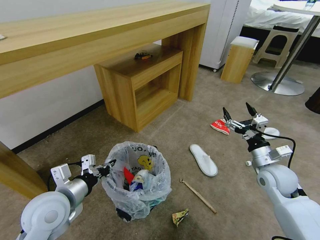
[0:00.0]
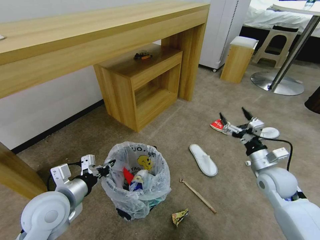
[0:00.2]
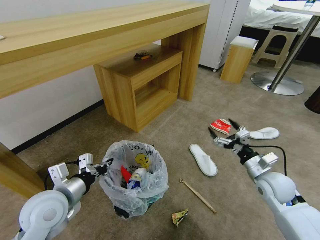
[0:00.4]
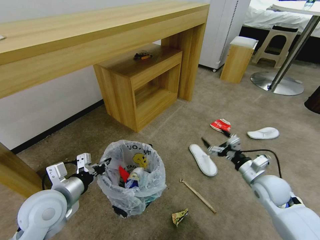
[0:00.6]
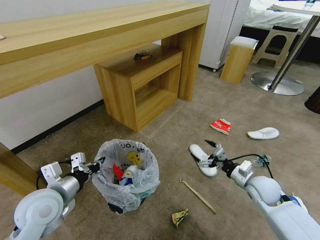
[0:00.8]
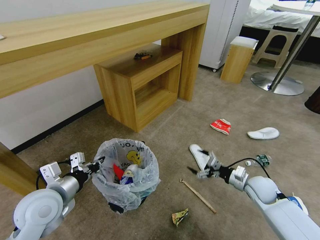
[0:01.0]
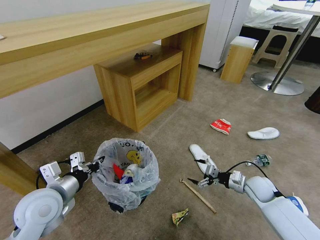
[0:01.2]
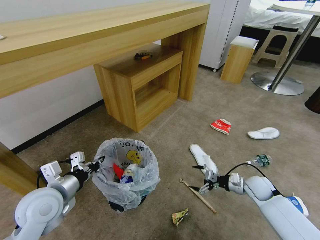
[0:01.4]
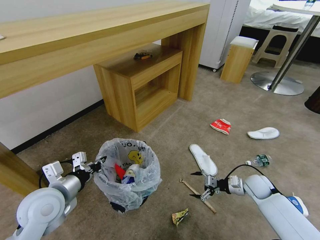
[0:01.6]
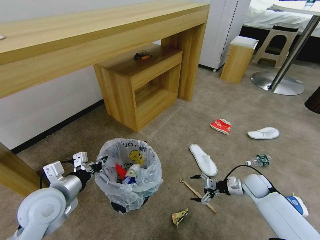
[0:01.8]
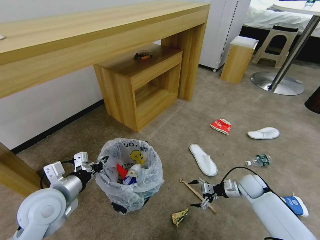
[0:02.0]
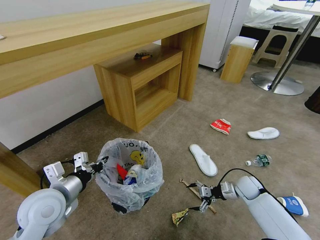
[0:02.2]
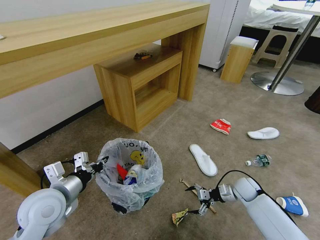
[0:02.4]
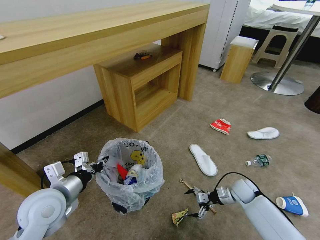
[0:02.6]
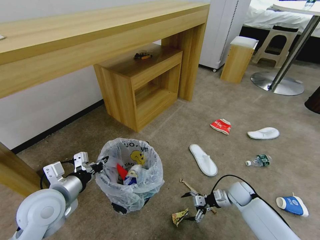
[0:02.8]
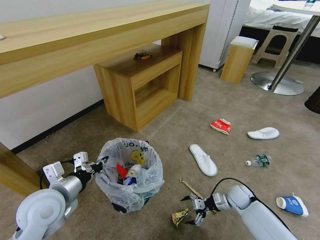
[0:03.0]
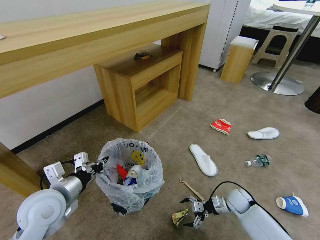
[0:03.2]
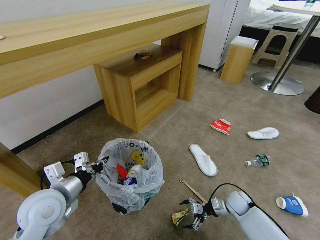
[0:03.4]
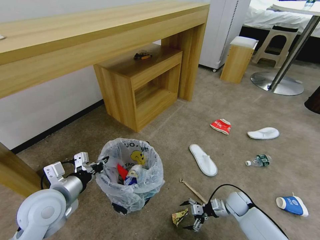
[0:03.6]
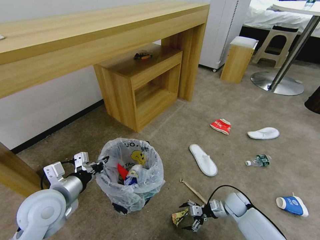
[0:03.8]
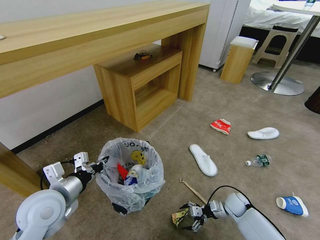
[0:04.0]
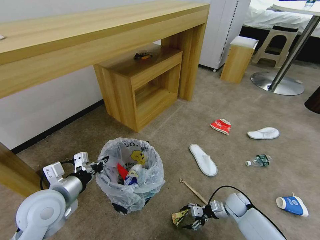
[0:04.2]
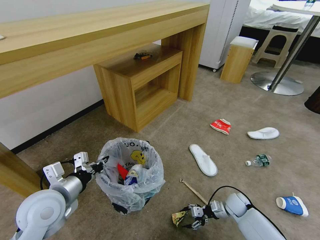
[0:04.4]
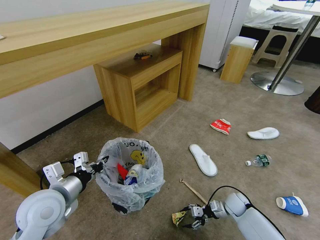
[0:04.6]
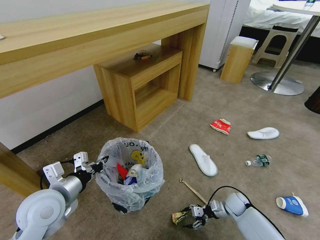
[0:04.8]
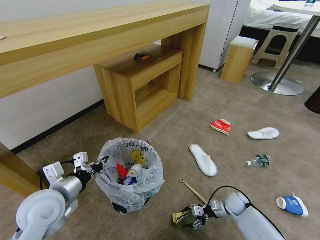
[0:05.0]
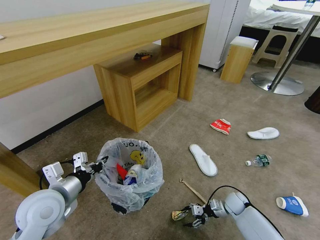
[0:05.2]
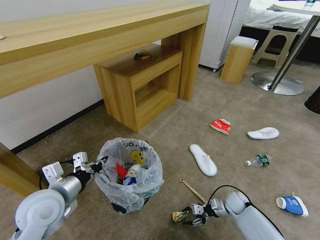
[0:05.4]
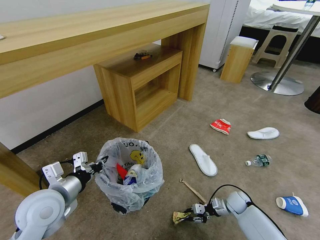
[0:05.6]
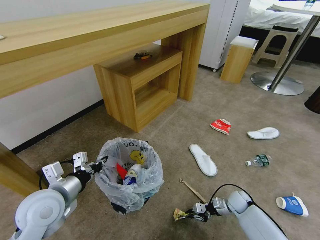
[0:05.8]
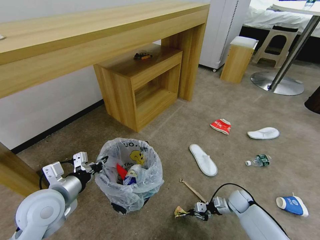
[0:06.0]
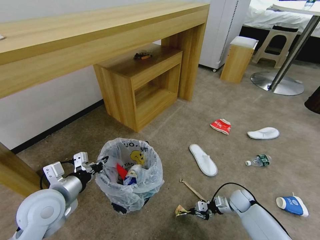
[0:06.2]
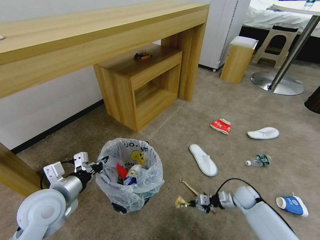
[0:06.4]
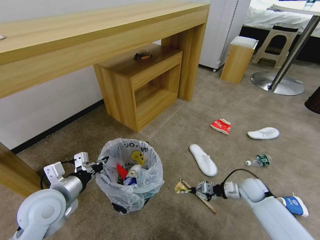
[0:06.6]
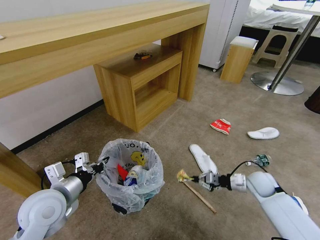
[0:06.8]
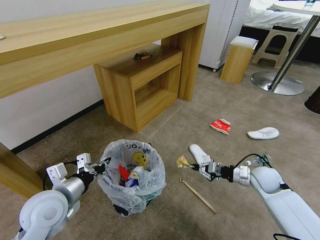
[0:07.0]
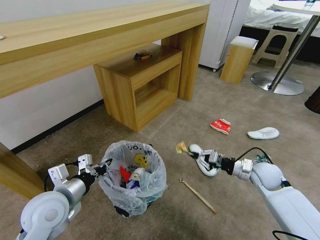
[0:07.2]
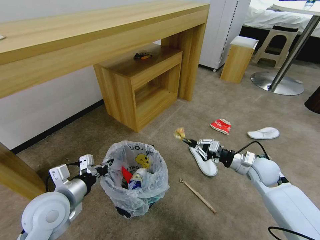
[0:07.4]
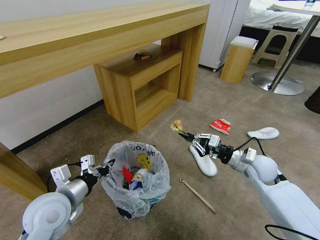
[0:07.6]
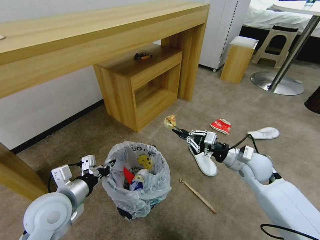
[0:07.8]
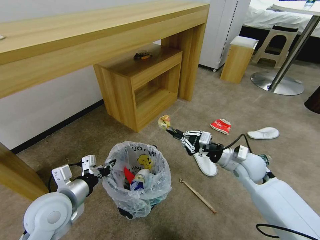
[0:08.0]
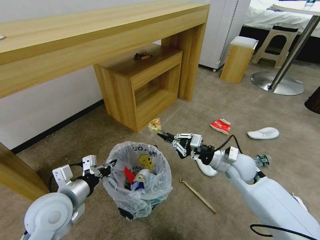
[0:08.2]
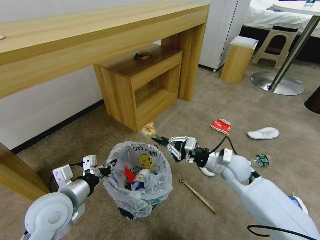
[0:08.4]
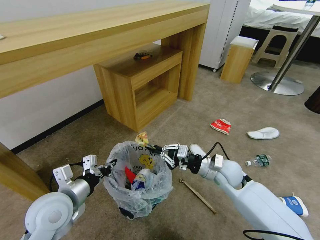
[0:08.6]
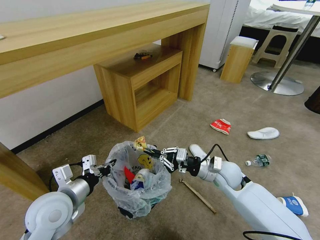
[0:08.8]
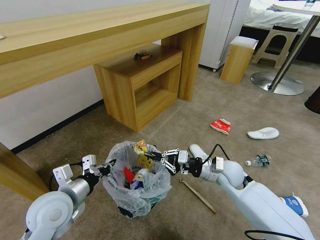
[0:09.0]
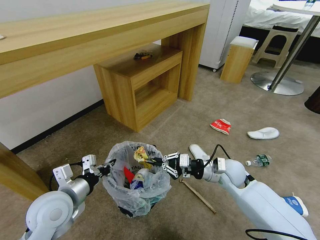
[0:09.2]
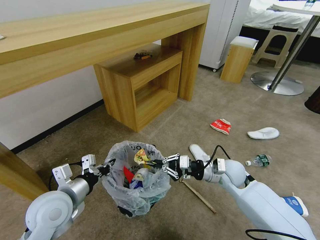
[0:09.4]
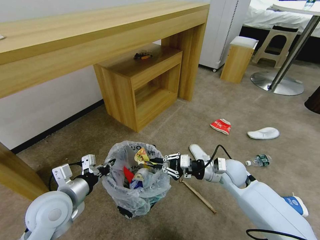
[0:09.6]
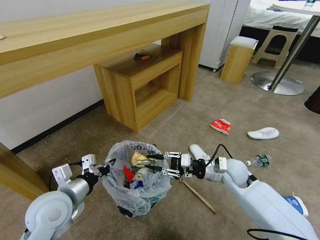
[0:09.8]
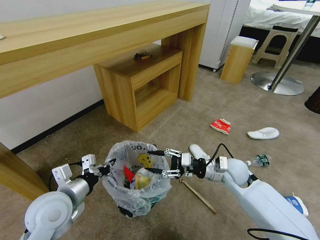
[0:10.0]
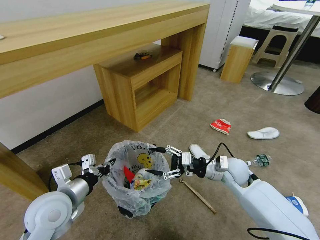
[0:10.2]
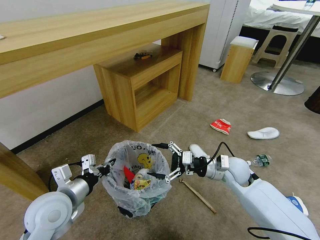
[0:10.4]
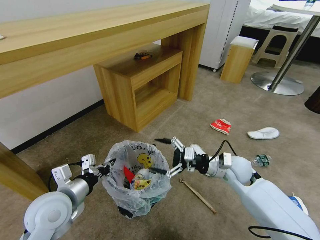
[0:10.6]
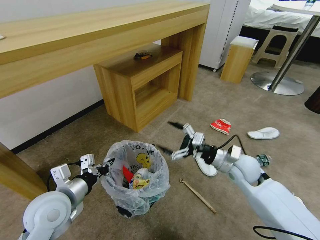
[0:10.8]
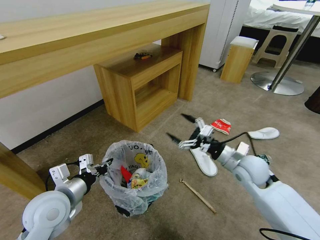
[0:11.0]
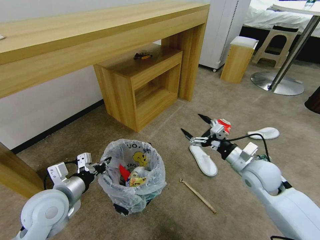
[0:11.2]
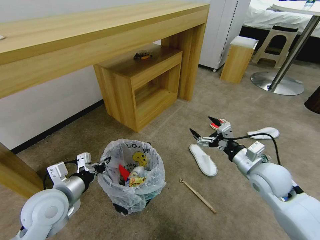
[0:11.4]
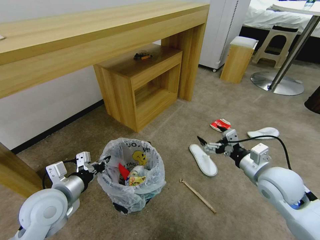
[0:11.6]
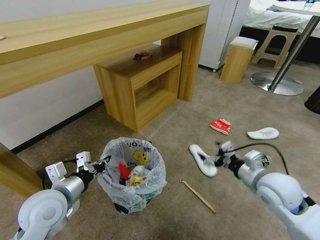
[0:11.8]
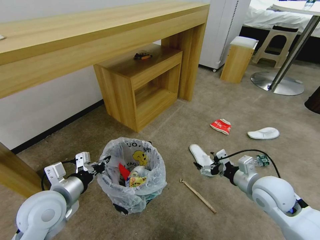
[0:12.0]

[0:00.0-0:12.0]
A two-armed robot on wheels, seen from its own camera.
Task of the whole recording: Pick up the trash bin and place the garbage on the floor into it.
0:00.0 to 0:01.6: The right gripper heads downward, covering about 15 cm.
0:01.6 to 0:03.0: The right gripper shifts approximately 10 cm downward and to the left.
0:03.0 to 0:04.4: The grippers stay close to where they were, moving slightly.
0:04.4 to 0:06.0: The right gripper closes.
0:06.0 to 0:07.6: The right gripper goes about 25 cm upward.
0:07.6 to 0:09.0: The right gripper moves to the left, some 10 cm.
0:09.0 to 0:10.4: The right gripper opens.
0:10.4 to 0:12.0: The right gripper goes about 10 cm backward and to the right.

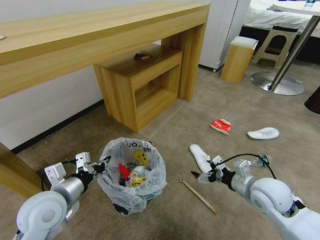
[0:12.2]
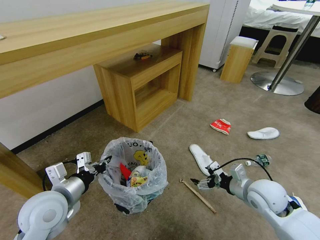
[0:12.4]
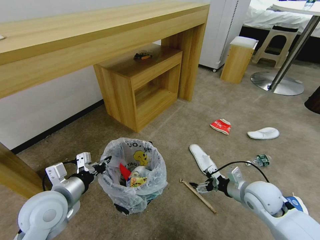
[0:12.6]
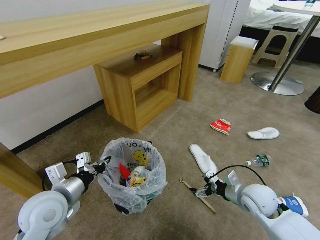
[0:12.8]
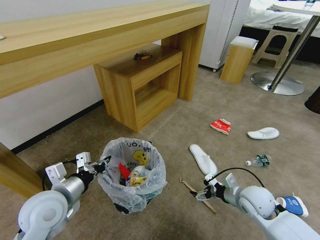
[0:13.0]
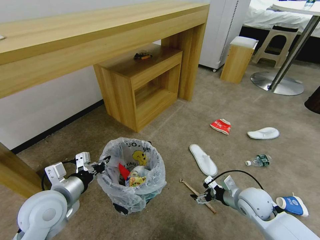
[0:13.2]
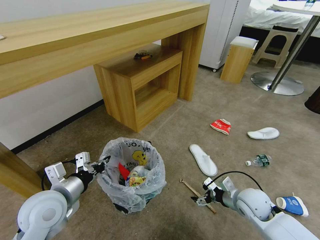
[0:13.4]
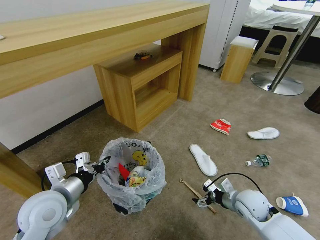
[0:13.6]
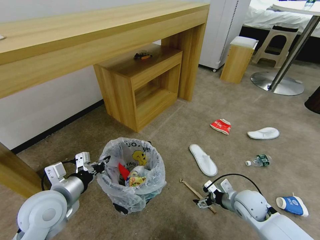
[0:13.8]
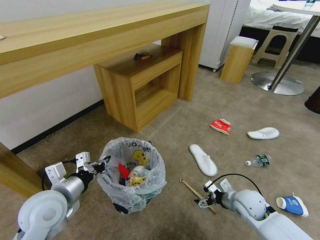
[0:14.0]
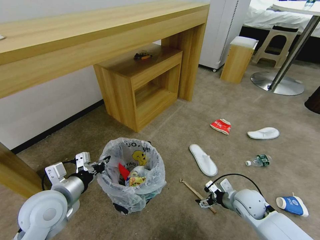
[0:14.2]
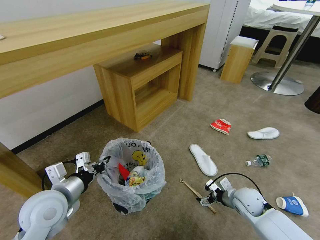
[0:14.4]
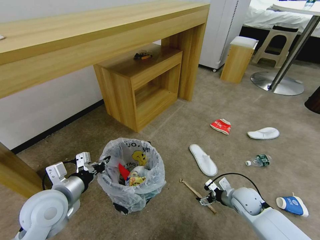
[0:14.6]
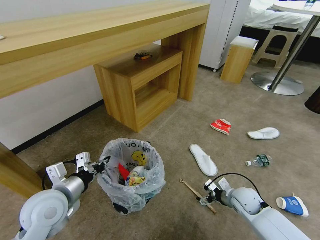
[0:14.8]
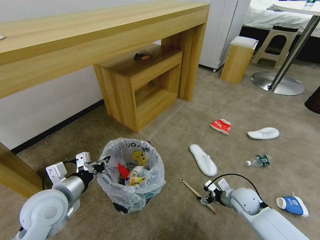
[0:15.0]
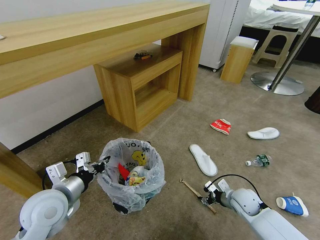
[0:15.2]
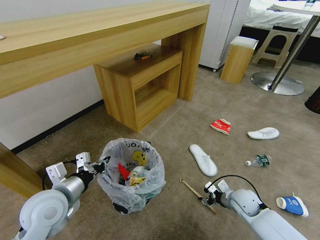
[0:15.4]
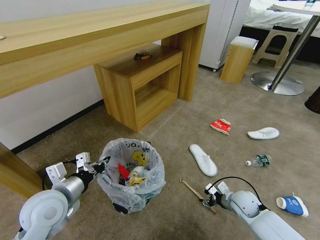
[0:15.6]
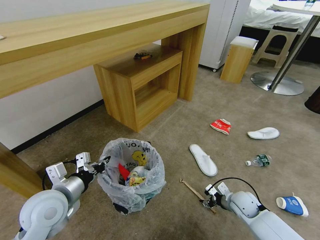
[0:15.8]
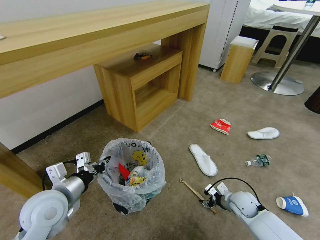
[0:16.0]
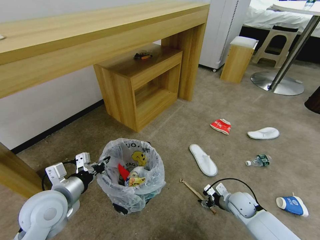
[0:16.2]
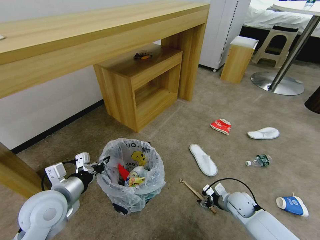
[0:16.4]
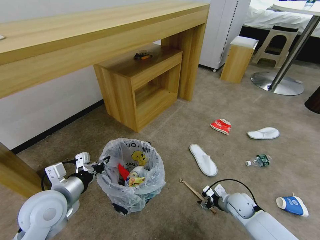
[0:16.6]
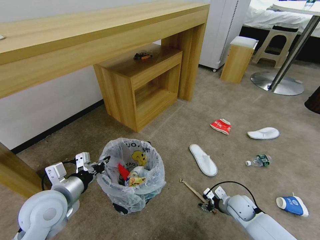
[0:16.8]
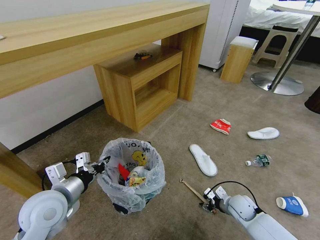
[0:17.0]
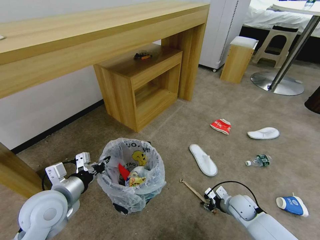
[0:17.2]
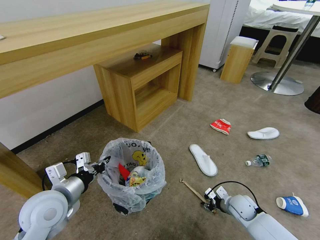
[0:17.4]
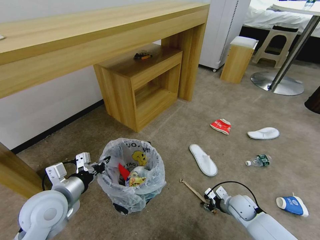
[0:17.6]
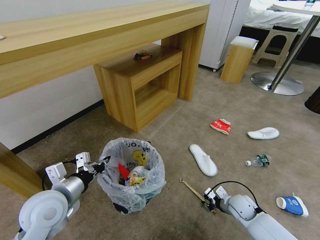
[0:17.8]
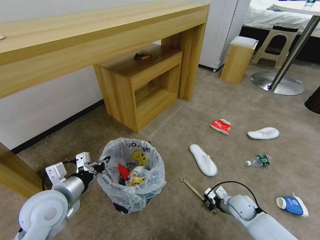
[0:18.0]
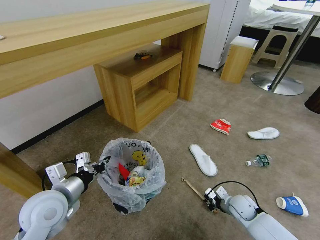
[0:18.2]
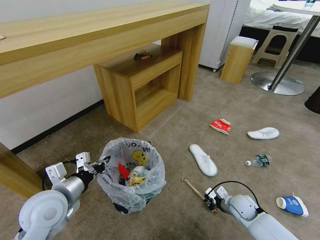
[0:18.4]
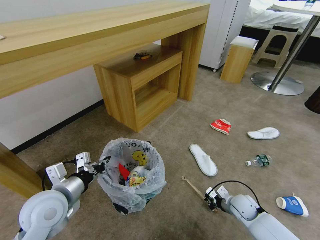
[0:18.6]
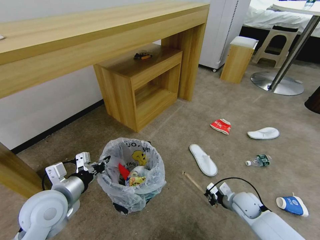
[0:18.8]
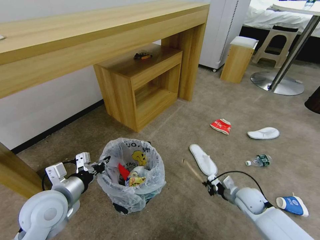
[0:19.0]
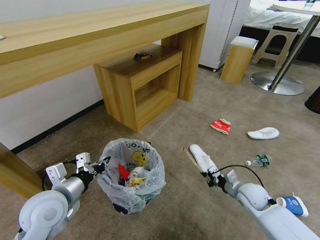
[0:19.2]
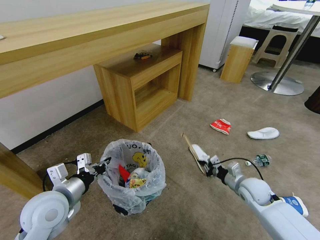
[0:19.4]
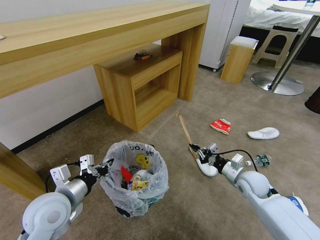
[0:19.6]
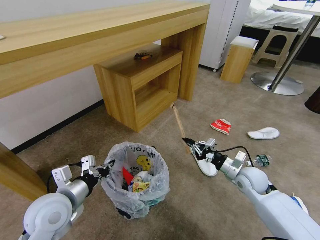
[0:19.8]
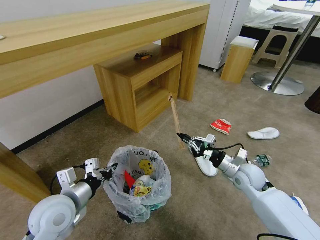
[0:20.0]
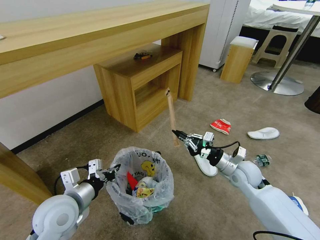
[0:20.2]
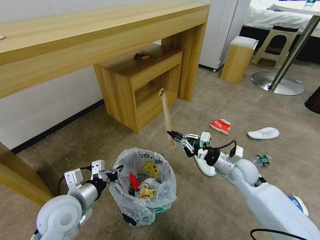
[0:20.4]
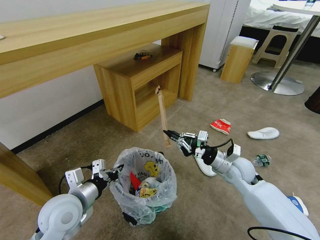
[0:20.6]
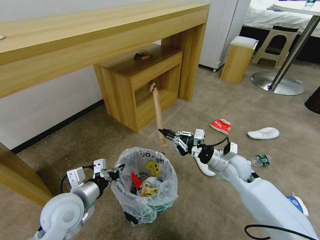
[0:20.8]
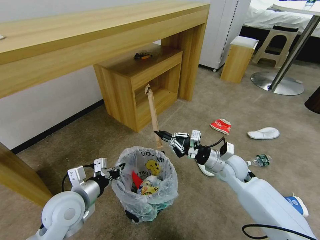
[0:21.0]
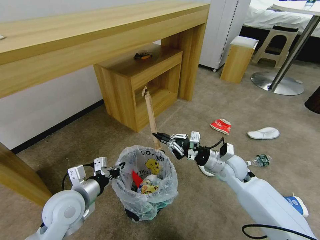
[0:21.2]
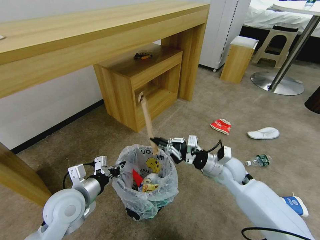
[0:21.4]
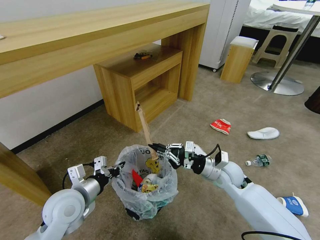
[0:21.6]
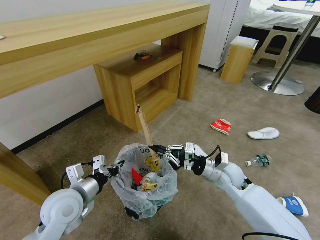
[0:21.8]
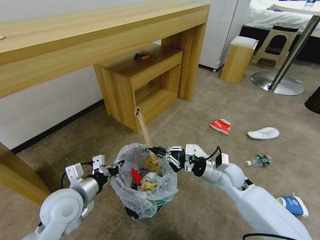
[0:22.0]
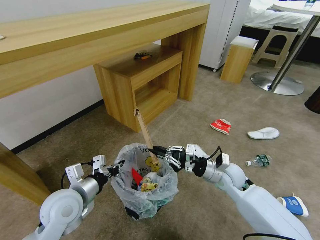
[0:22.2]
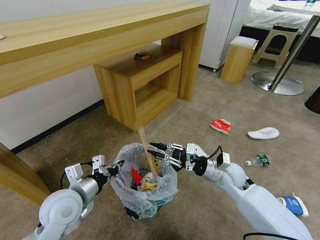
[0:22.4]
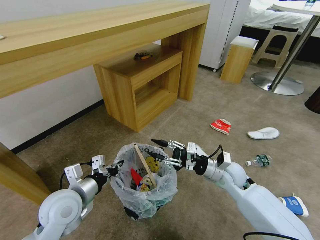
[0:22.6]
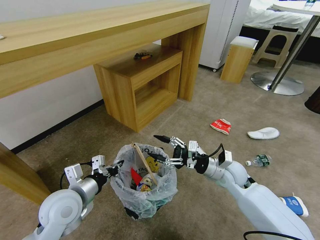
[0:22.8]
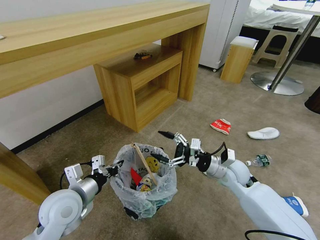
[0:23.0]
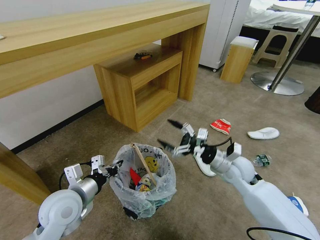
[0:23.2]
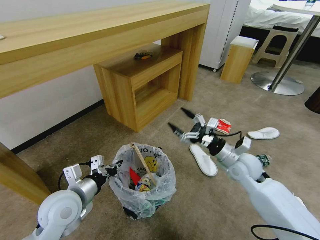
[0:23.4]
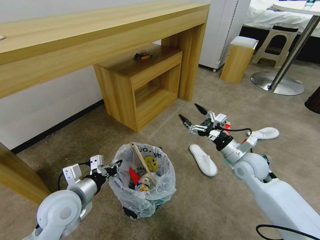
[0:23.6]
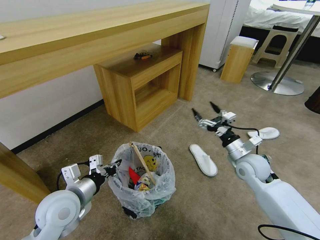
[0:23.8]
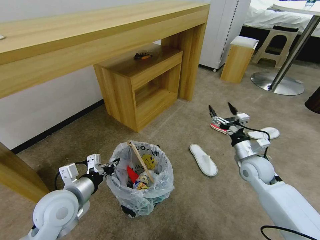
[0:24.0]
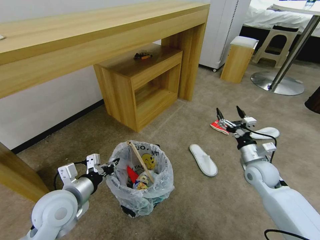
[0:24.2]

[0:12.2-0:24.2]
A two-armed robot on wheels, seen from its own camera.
Task of the whole recording: Pick up the trash bin and place the garbage on the floor into it.
0:12.2 to 0:13.8: The right gripper is displaced downward by roughly 10 cm.
0:13.8 to 0:15.2: The right gripper ends up approximately 5 cm from where it was, and closes up.
0:15.2 to 0:16.6: The grippers make only small movements.
0:16.6 to 0:18.2: The right gripper closes its fingers.
0:18.2 to 0:19.8: The right gripper travels upward by some 15 cm.
0:19.8 to 0:21.2: The right gripper goes about 10 cm to the left.
0:21.2 to 0:22.6: The right gripper opens up.
0:22.6 to 0:24.2: The right gripper is displaced to the right by approximately 10 cm, and opens its fingers.
